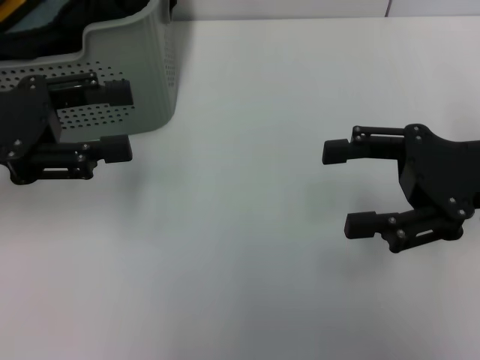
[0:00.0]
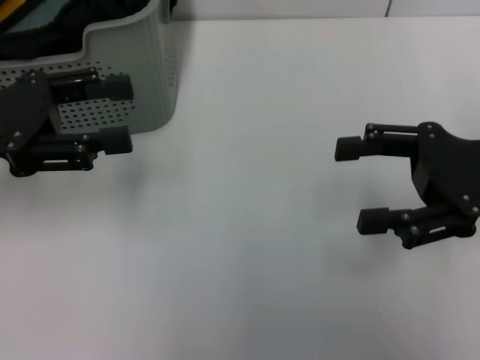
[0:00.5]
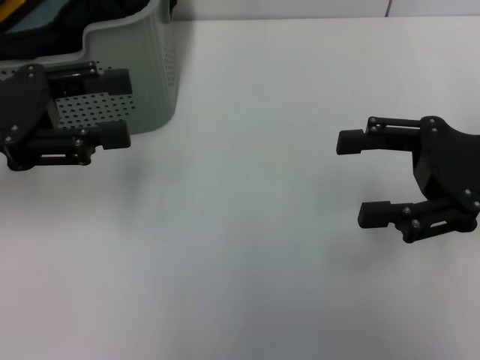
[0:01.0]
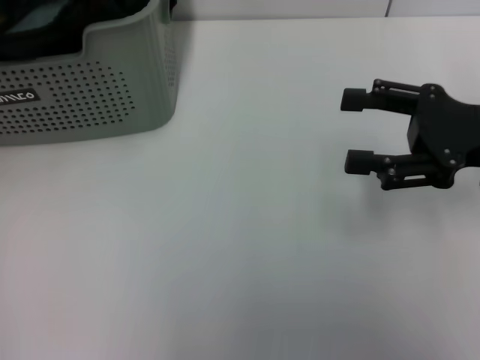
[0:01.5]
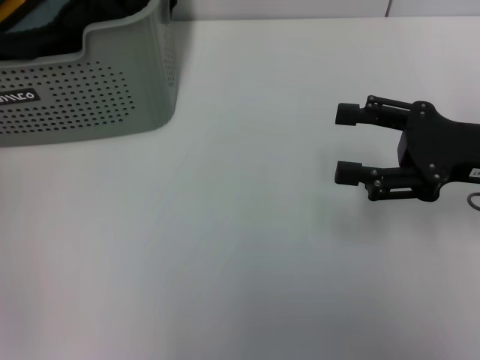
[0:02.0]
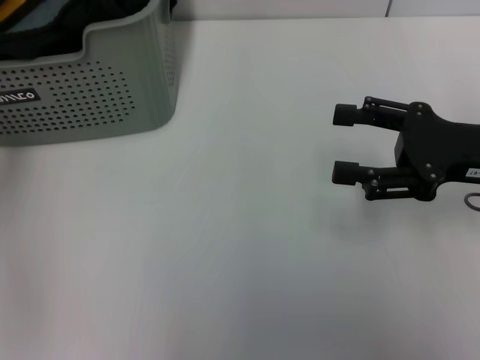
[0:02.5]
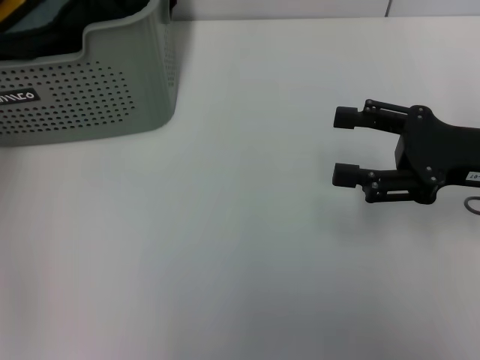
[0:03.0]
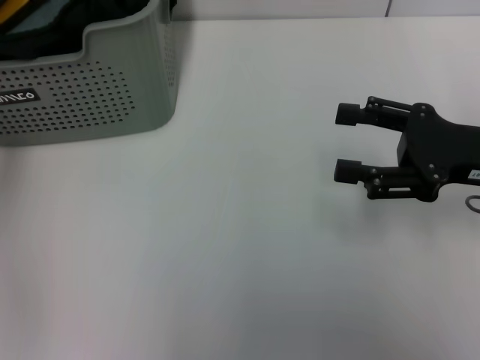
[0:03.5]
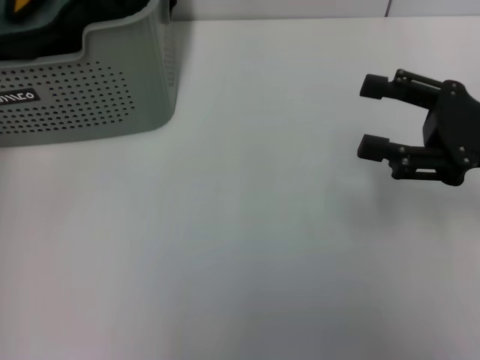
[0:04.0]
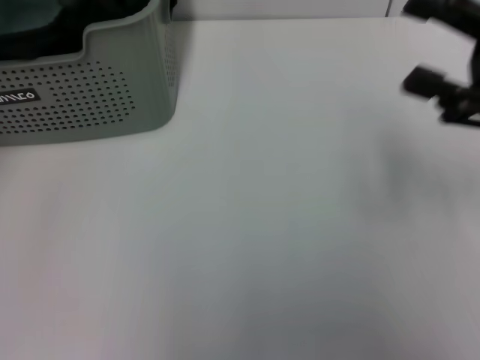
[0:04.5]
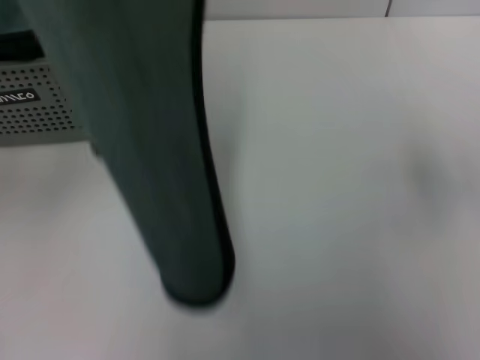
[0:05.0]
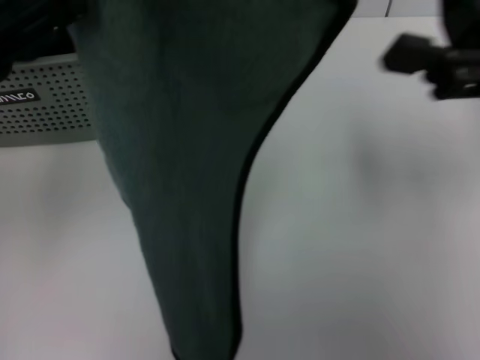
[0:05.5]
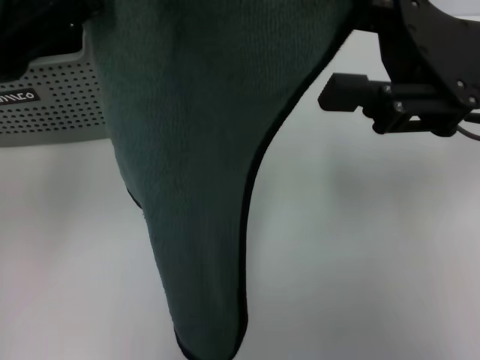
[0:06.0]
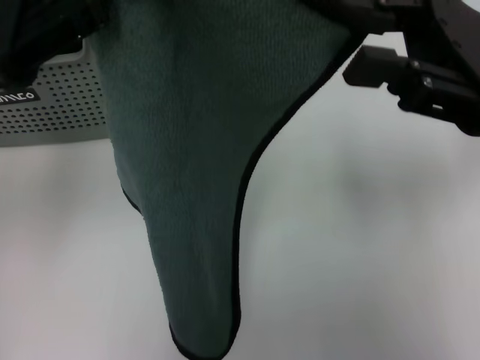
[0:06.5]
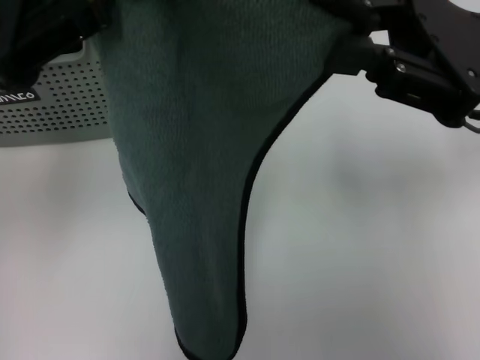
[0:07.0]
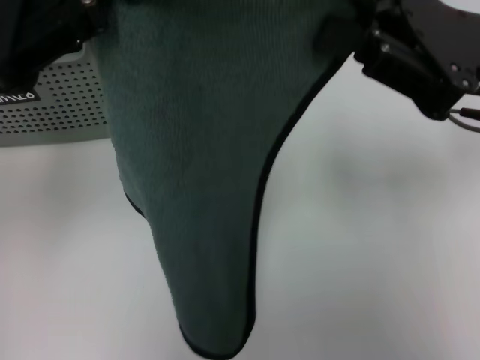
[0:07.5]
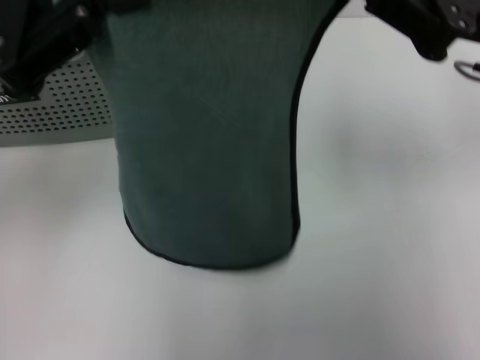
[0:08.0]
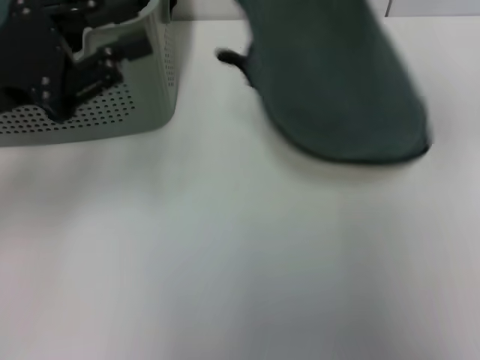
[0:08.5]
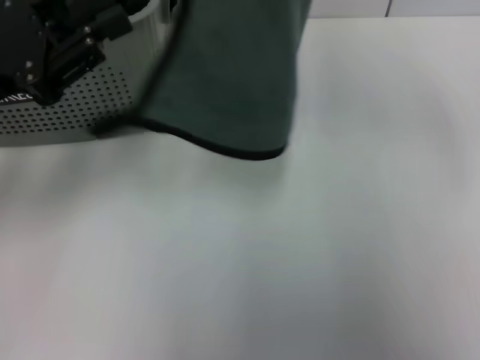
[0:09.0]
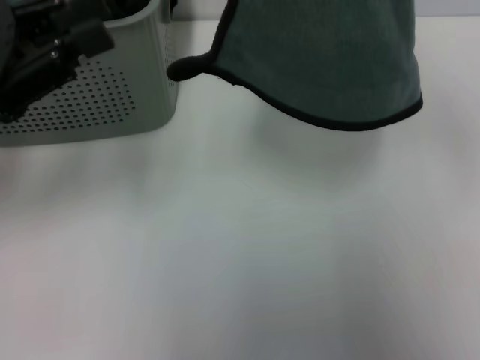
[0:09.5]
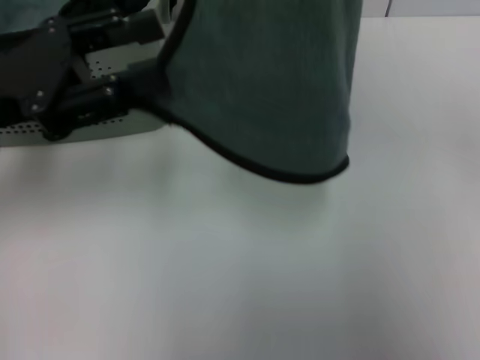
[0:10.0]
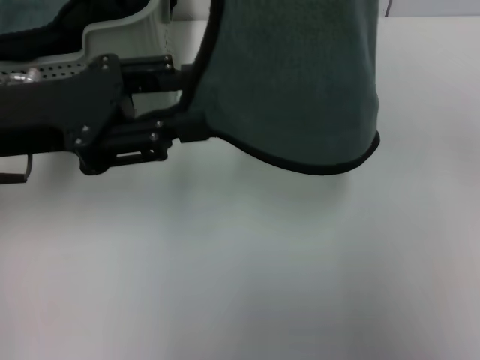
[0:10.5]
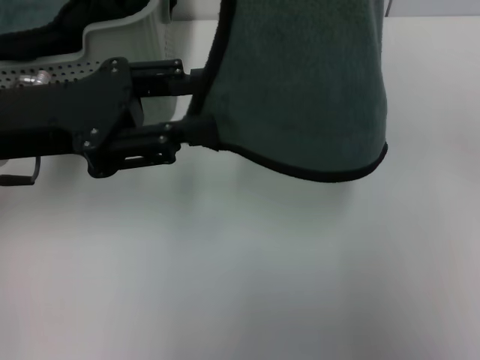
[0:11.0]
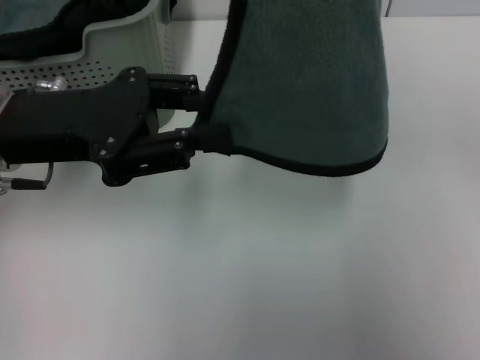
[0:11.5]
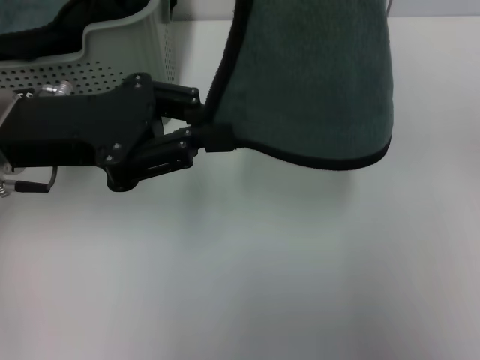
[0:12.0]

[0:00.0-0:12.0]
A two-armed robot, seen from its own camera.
Task of the whole recording: pick up the towel from the storage box and lay it flat on the table.
Step, 0:00.0 to 0:03.5: Pick up a towel with the left gripper.
Step, 0:04.0 to 0:07.0: Spread the towel flat with the left gripper.
0:00.0 to 0:02.0: The left gripper moves upward and forward, roughly 15 cm.
0:04.0 to 0:06.0: The left gripper goes about 15 cm backward and to the right, while the right gripper heads upward and to the left, covering roughly 10 cm.
0:06.0 to 0:08.0: The left gripper travels downward by approximately 5 cm; the right gripper closes.
0:08.0 to 0:10.0: The right gripper shifts some 10 cm upward; the left gripper is displaced downward by about 10 cm, and opens.

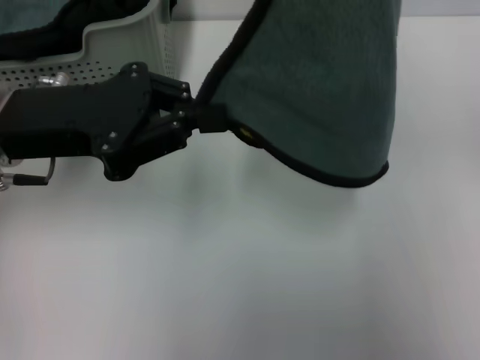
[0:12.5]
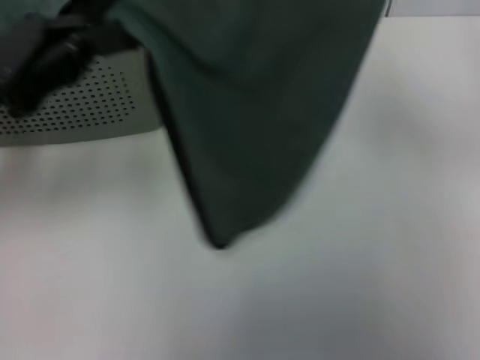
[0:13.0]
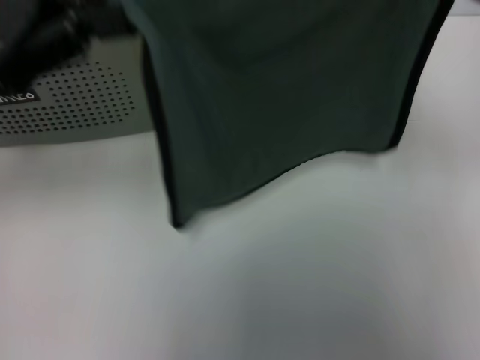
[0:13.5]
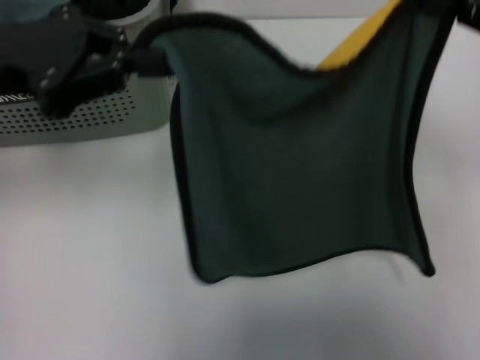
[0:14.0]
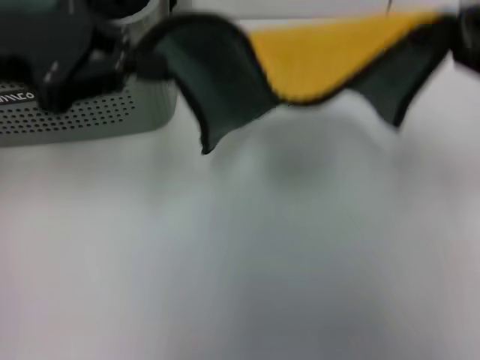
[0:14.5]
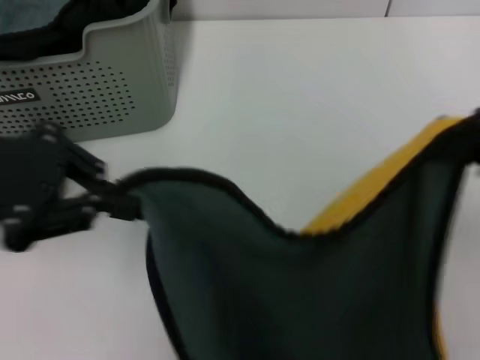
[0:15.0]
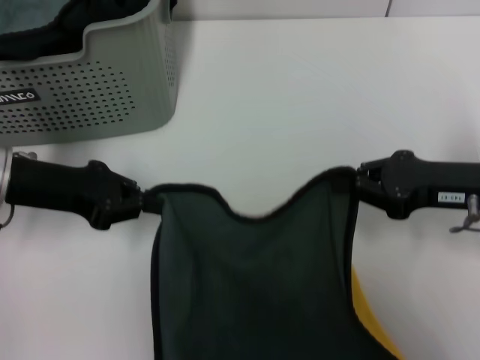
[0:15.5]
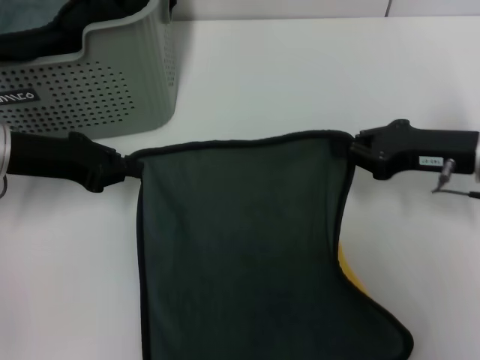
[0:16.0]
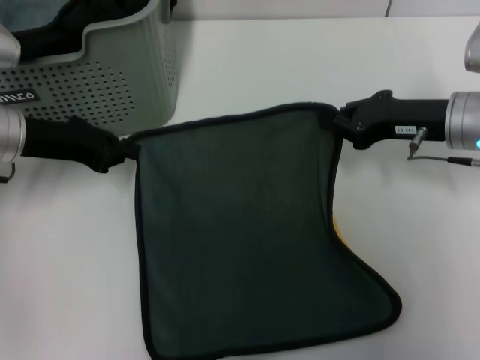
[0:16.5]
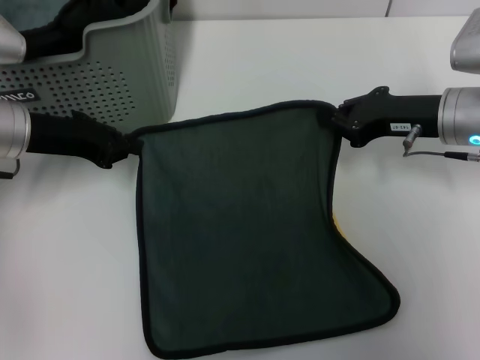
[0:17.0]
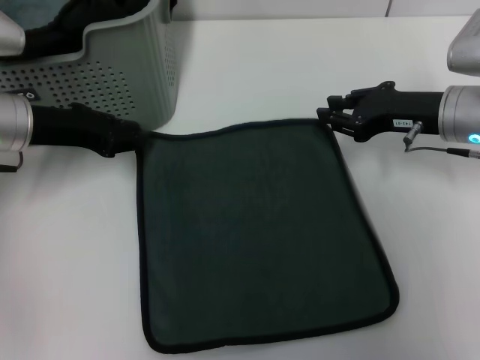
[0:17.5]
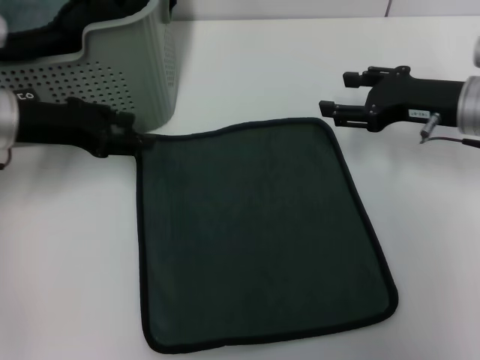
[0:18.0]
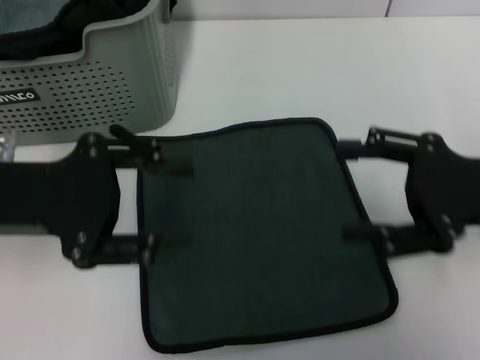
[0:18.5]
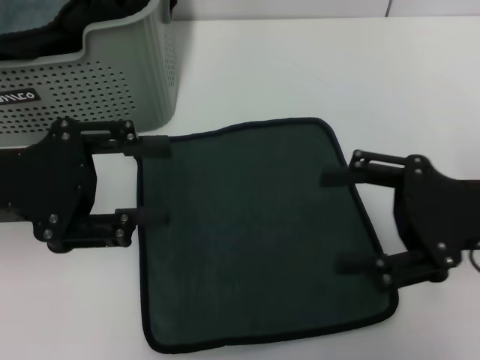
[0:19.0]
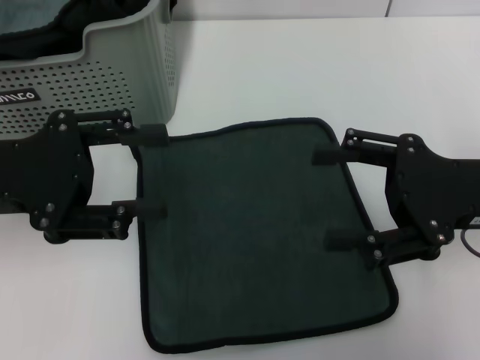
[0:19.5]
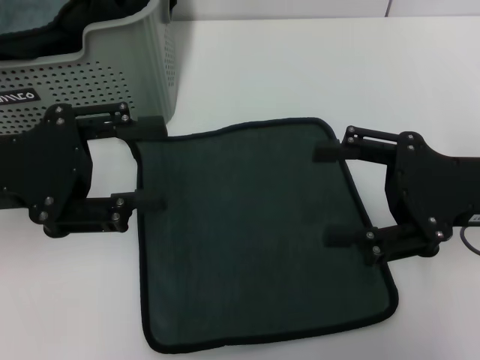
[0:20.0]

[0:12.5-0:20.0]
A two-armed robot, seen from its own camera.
Task of the whole recording: pick up the towel from the storage box and lay it flat on the table.
Step, 0:12.5 to 0:17.5: Spread the towel flat with the right gripper.
0:12.5 to 0:14.5: The left gripper moves upward, approximately 5 cm. The right gripper shifts roughly 10 cm downward and to the right.
0:14.5 to 0:16.5: The right gripper heads downward, forward and to the left, covering roughly 15 cm, while the left gripper moves downward, roughly 15 cm.
0:16.5 to 0:18.0: The left gripper opens. Meanwhile the right gripper opens its fingers.
0:18.0 to 0:20.0: Both grippers travel together backward, approximately 10 cm. The right gripper opens its fingers.
